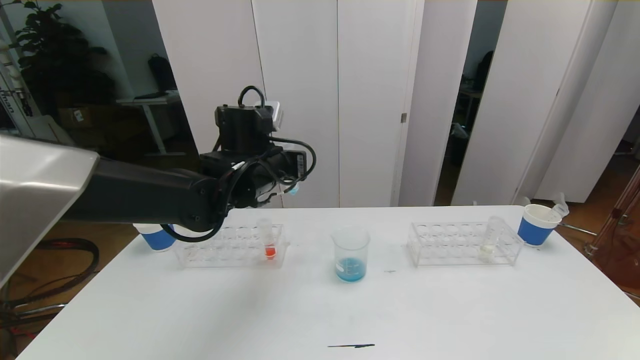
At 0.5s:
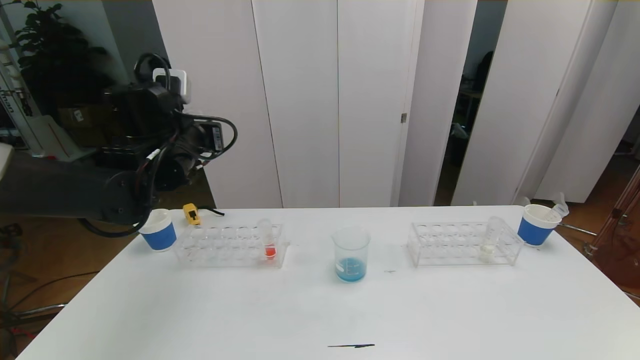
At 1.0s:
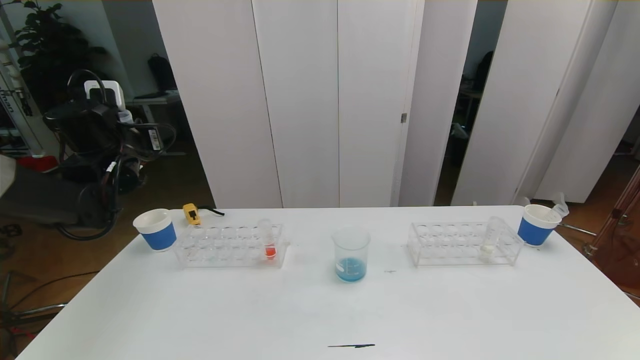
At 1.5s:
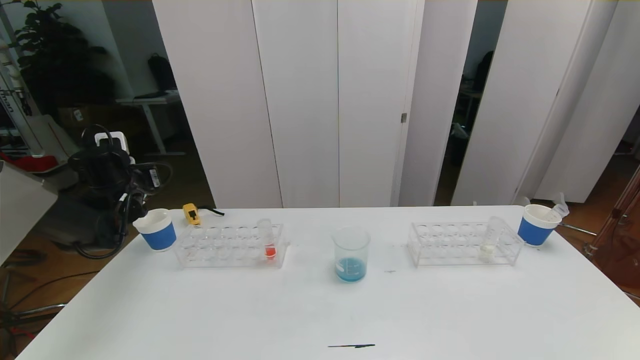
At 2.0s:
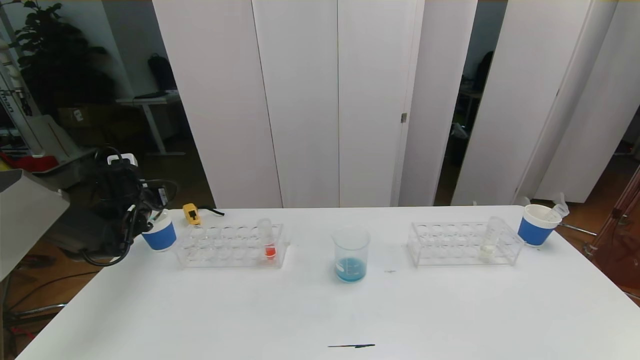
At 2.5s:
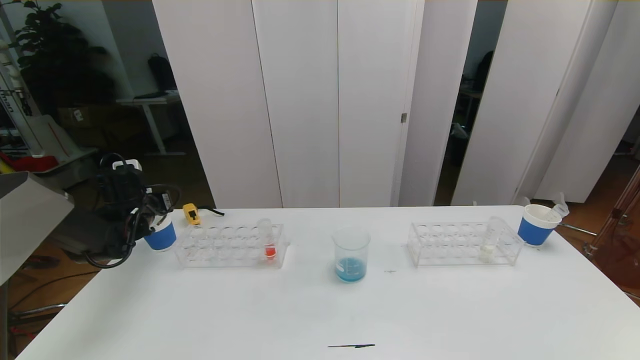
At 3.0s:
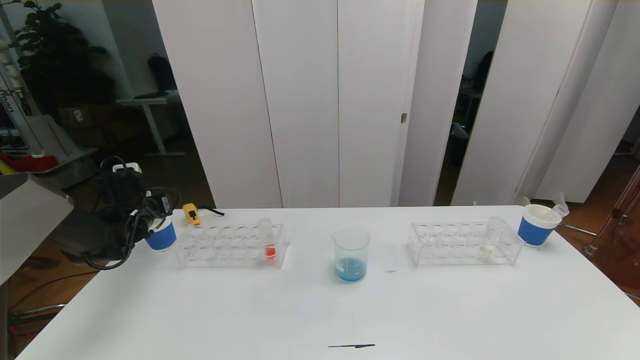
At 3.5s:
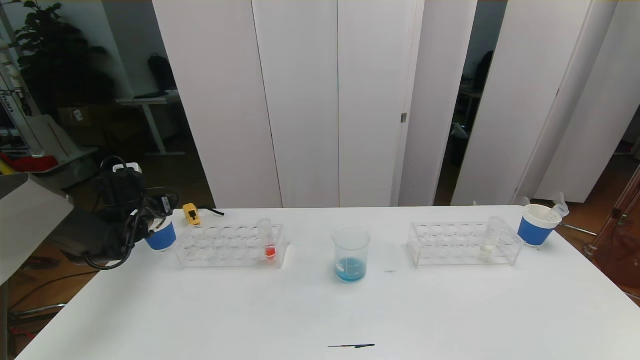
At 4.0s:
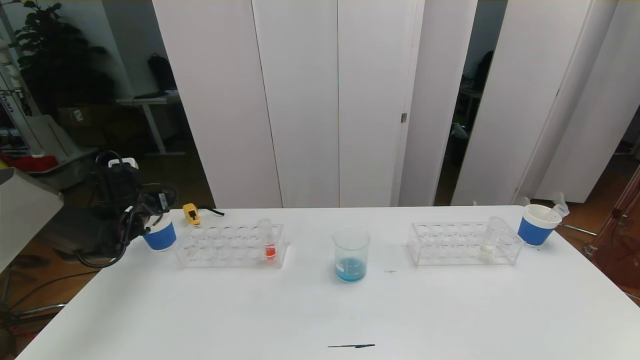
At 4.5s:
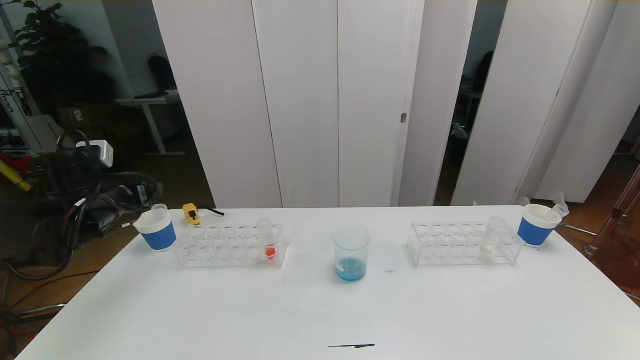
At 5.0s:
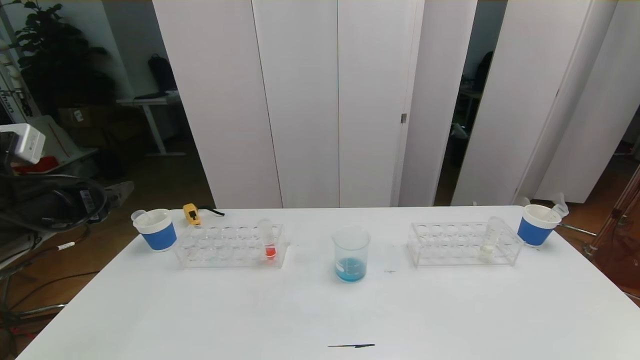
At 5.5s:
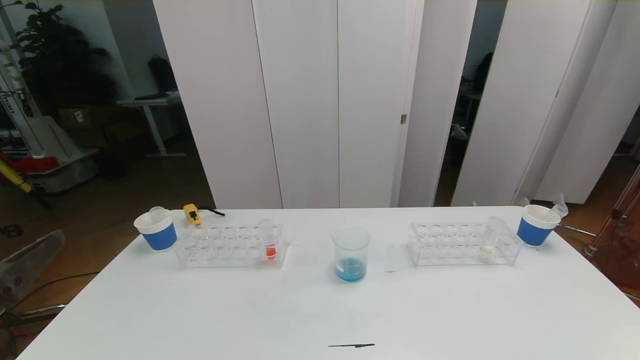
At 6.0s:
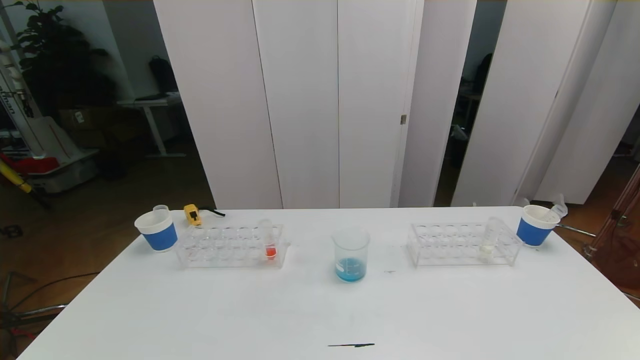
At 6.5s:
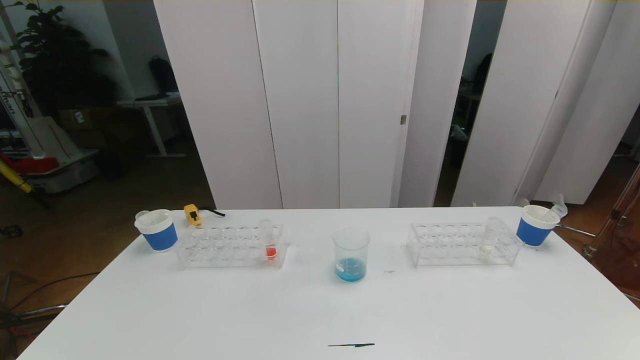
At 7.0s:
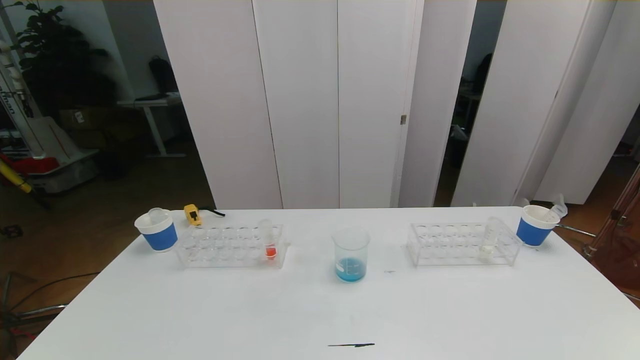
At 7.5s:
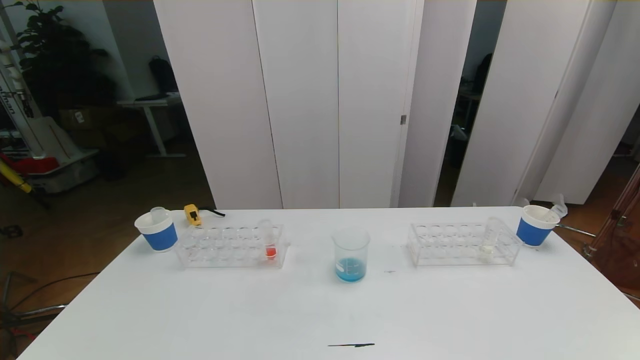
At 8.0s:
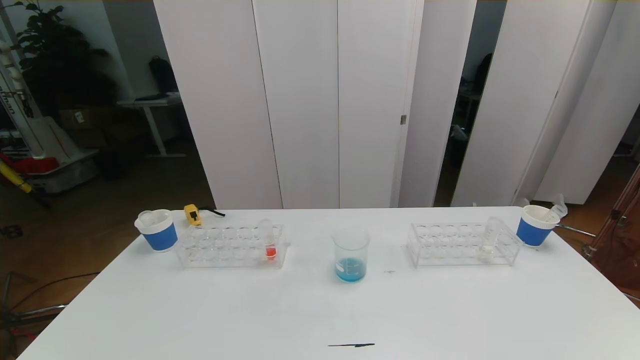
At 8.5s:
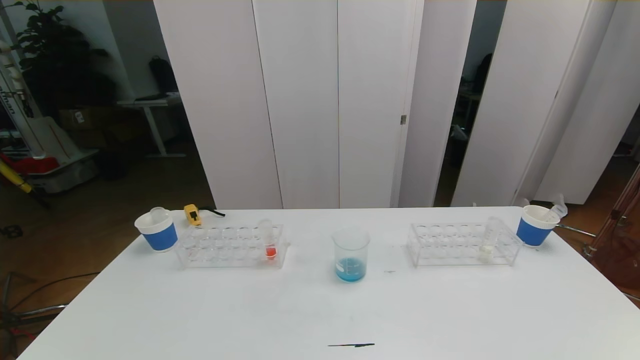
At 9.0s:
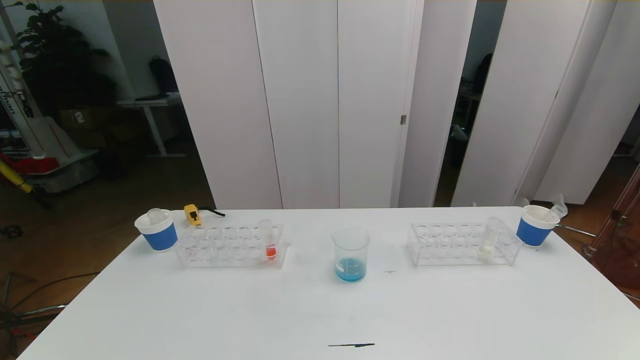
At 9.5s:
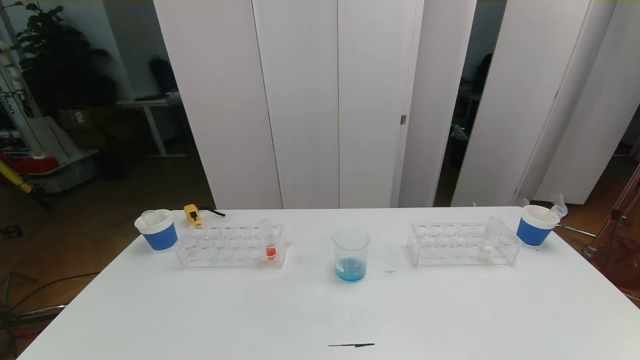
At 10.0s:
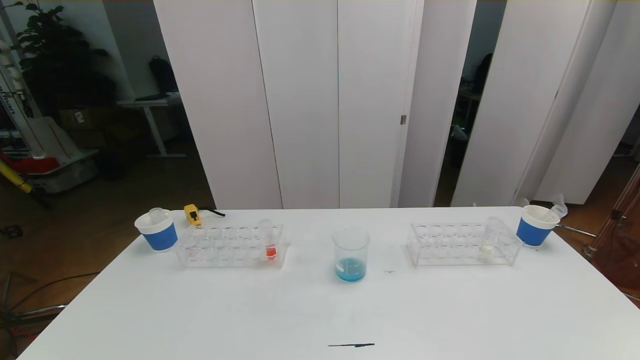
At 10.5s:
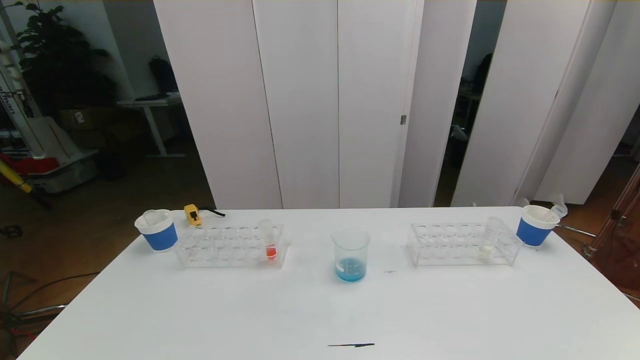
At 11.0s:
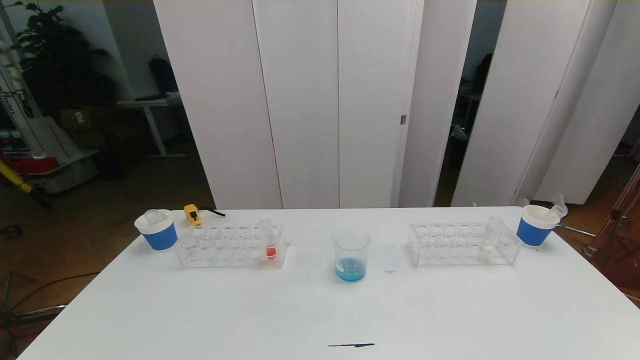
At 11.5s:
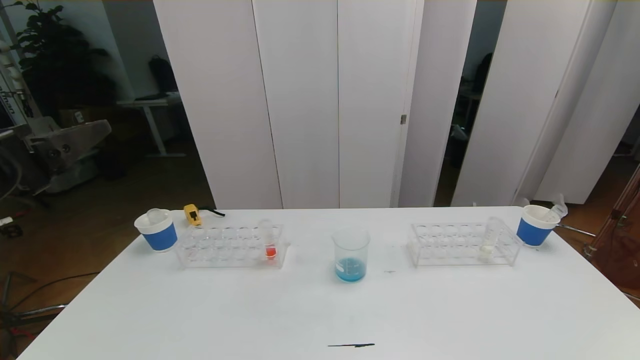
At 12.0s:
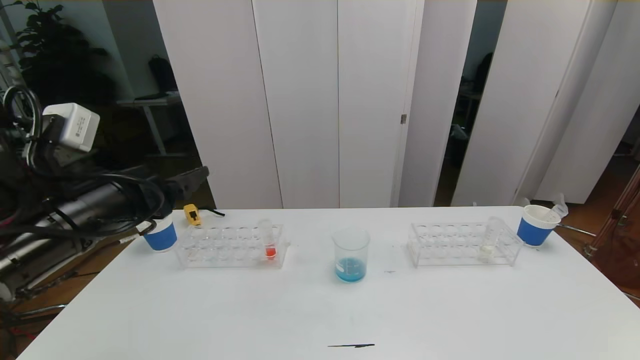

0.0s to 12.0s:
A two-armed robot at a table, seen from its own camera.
Task of the whole recording: pick up the test tube with red pigment the test tube with blue pigment and the test tube with white pigment by grippers and pour them into the beaker.
Step, 0.0s to 6.5s: Pour the blue reagent into the graduated cylinder and place the test tube into the paper cup.
0.0s to 2.0s: The left gripper goes roughly 30 cm to the left and downward.
2.0s to 4.0s: The left gripper opens.
4.0s to 6.0s: The left gripper is displaced backward by about 50 cm.
10.0s to 12.0s: The left gripper travels forward and upward by about 30 cm.

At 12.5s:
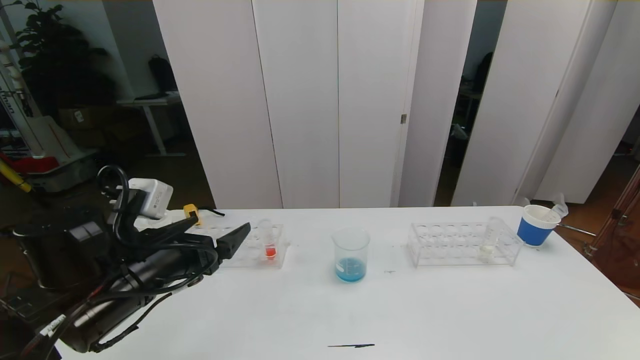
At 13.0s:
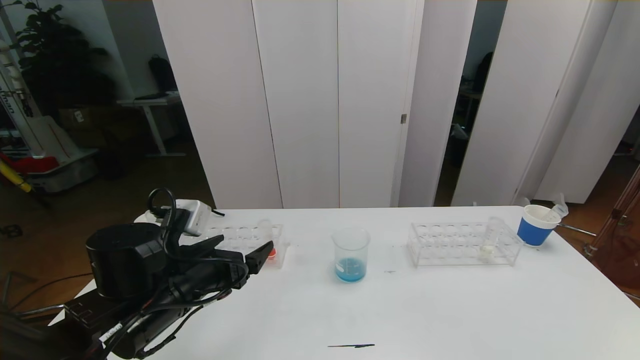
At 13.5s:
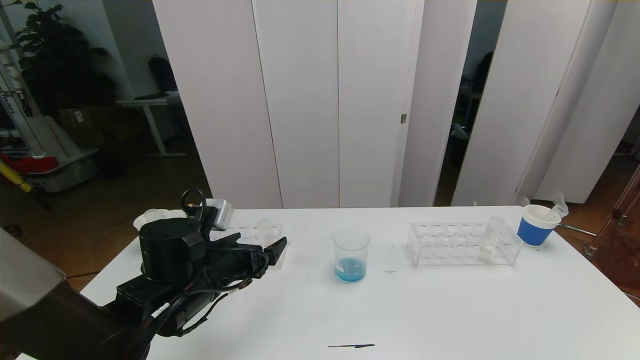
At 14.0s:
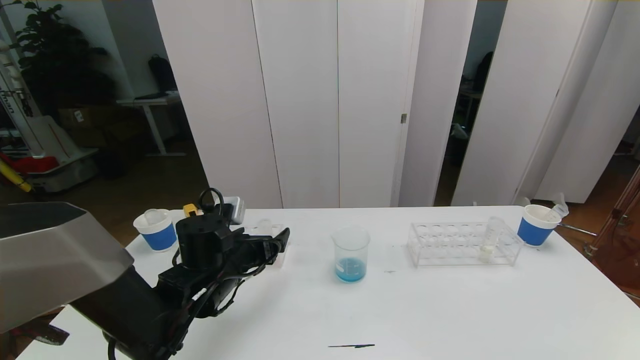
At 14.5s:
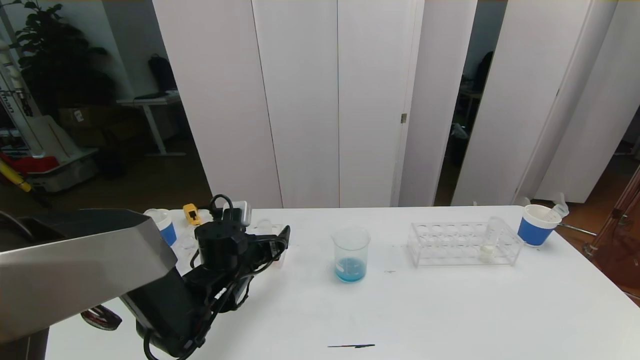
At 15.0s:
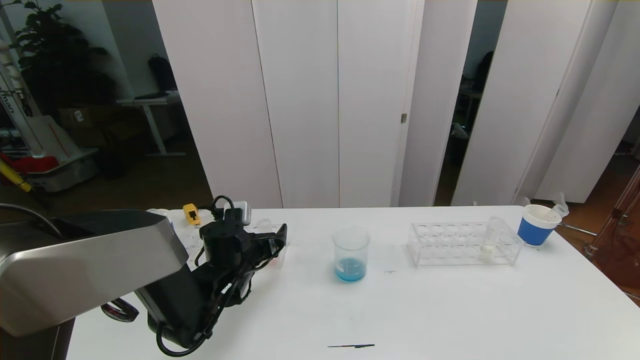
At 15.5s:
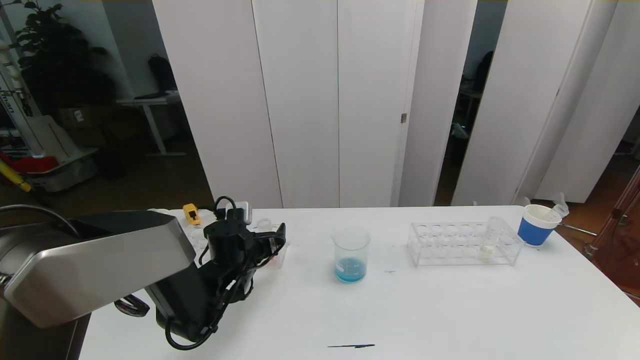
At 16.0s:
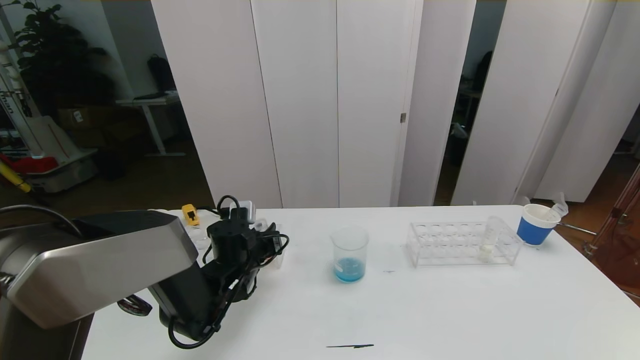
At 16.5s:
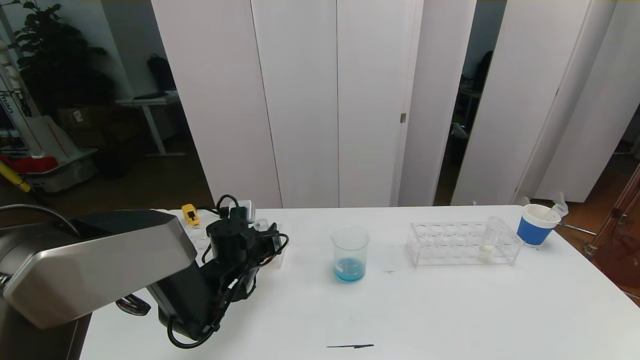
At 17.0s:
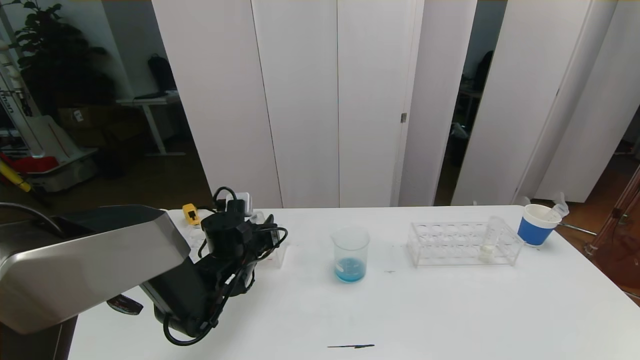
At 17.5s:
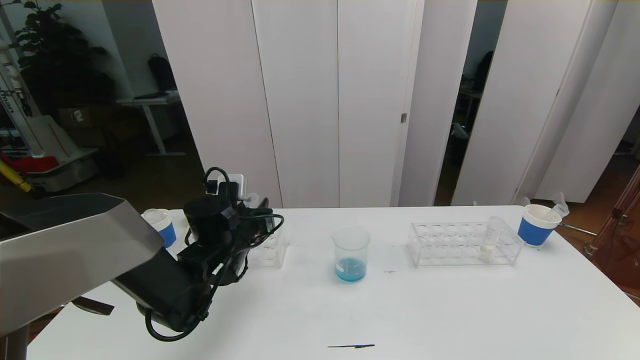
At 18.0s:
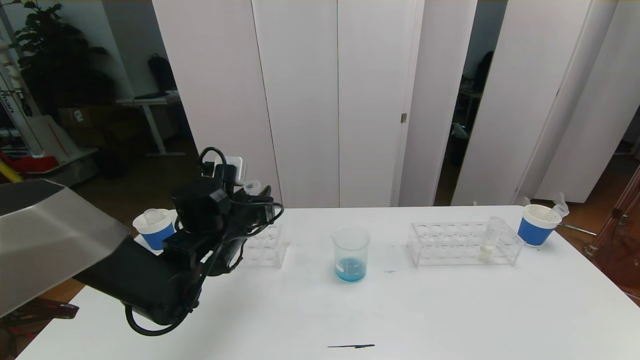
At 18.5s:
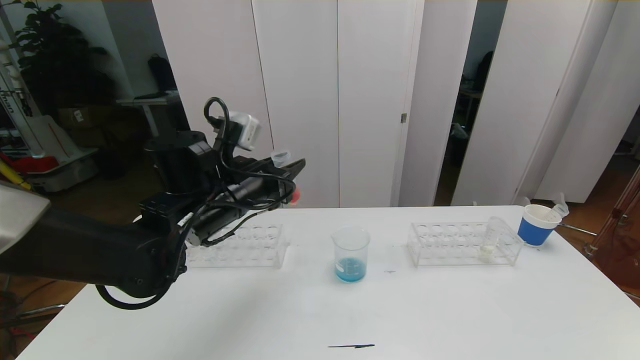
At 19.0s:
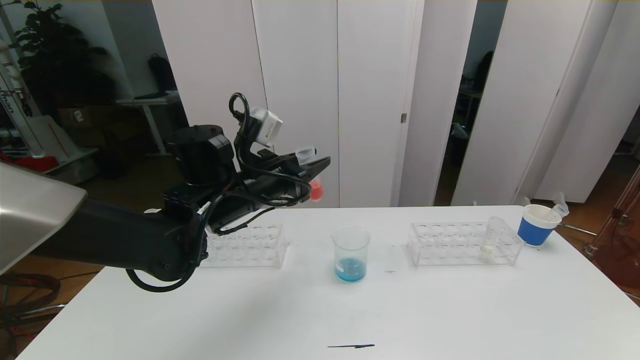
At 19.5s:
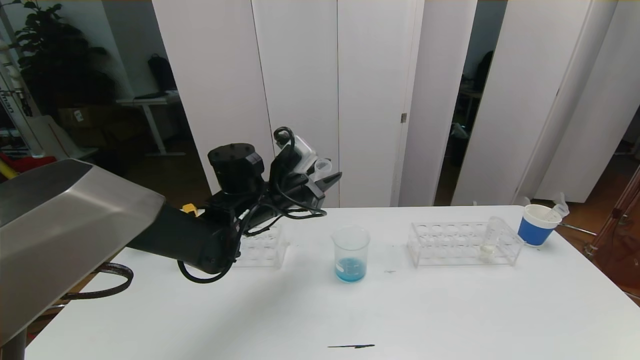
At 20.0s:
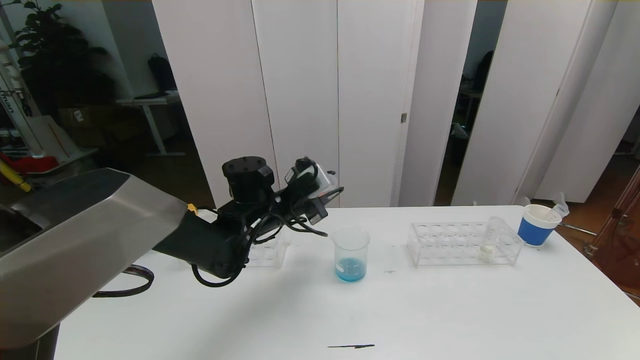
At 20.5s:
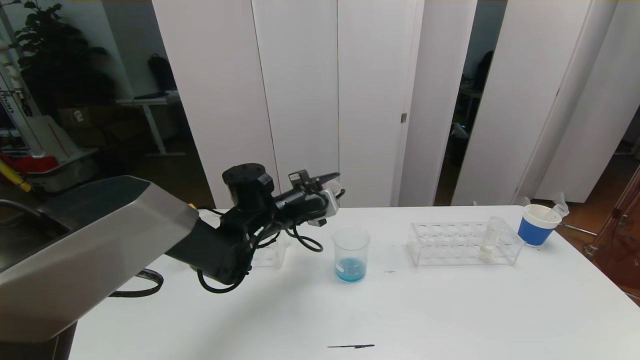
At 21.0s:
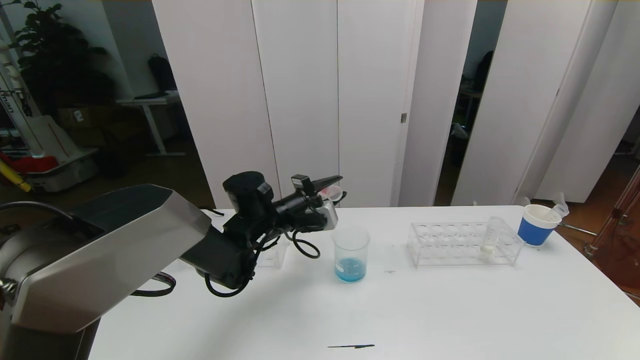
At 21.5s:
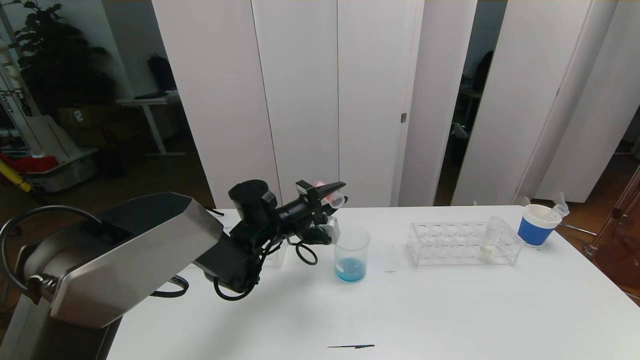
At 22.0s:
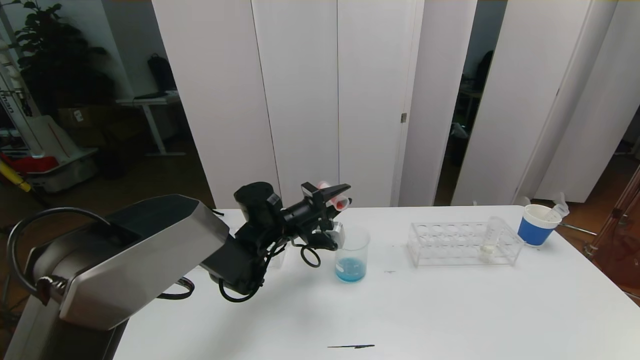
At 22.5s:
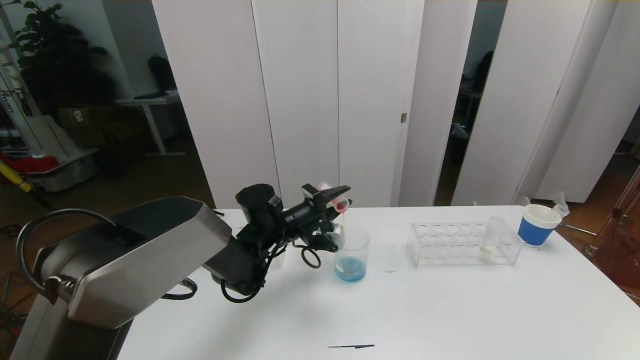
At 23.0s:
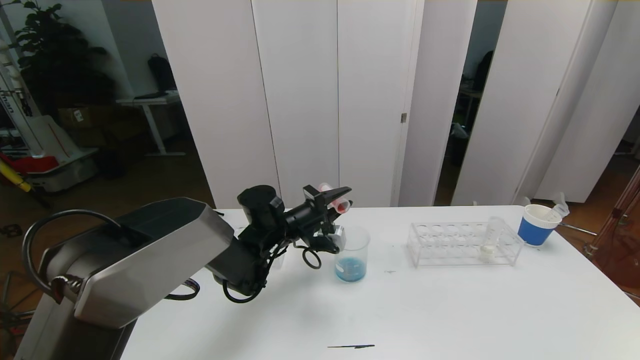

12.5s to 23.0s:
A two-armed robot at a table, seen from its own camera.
Task of the whole recording: pick up the test tube with red pigment the test tube with blue pigment and the test tube with white pigment by grippers and pour them into the beaker.
12.5s to 14.5s: The left gripper goes approximately 15 cm forward, downward and to the right.
14.5s to 16.5s: The left gripper closes its fingers.
16.5s to 19.0s: The left gripper travels upward by roughly 15 cm.
19.0s to 21.0s: The left gripper travels downward and forward by roughly 10 cm.
21.0s to 23.0s: The grippers move only a little.
